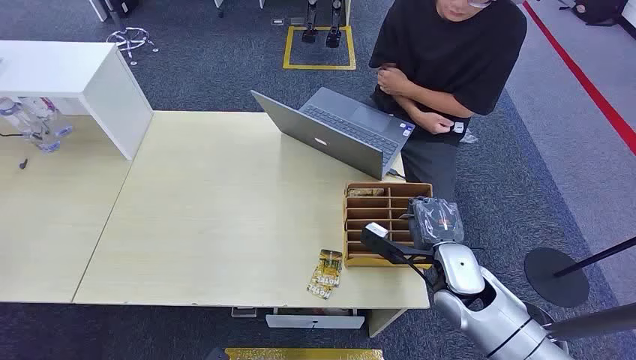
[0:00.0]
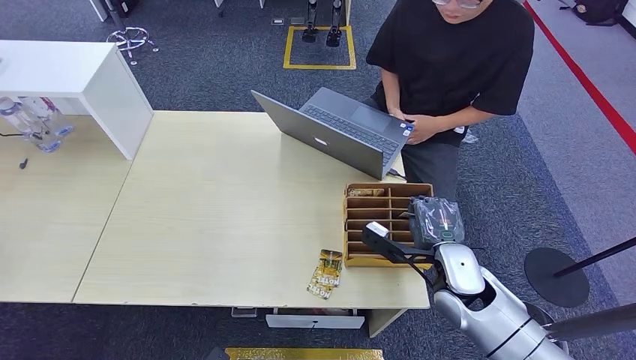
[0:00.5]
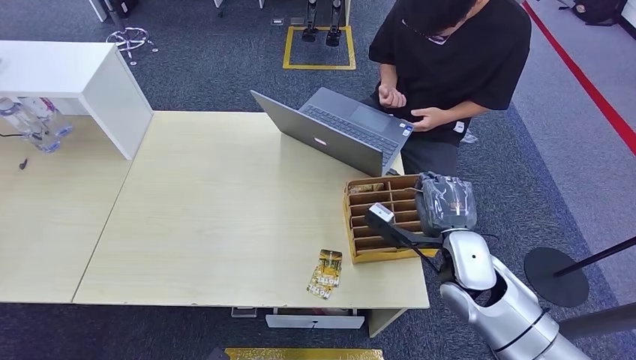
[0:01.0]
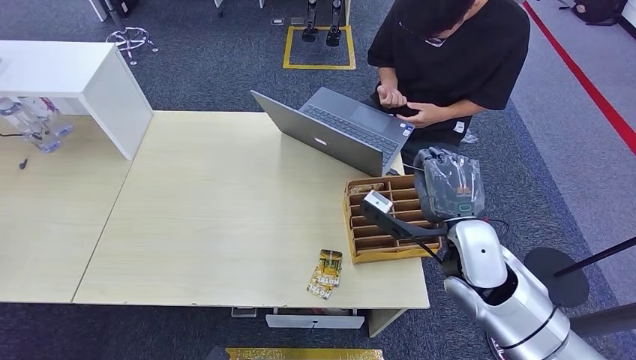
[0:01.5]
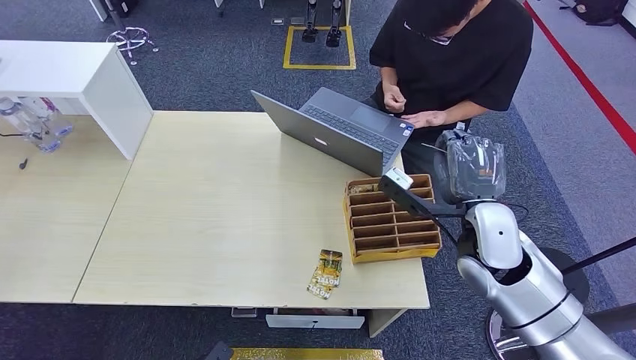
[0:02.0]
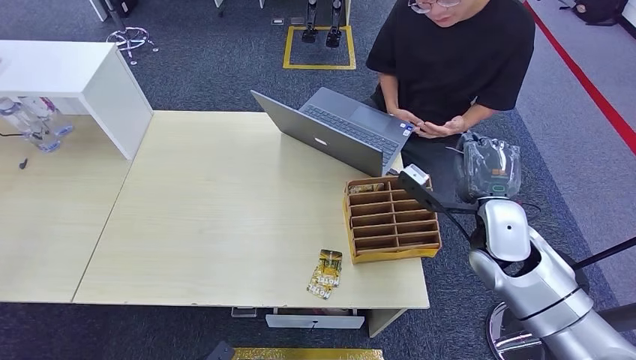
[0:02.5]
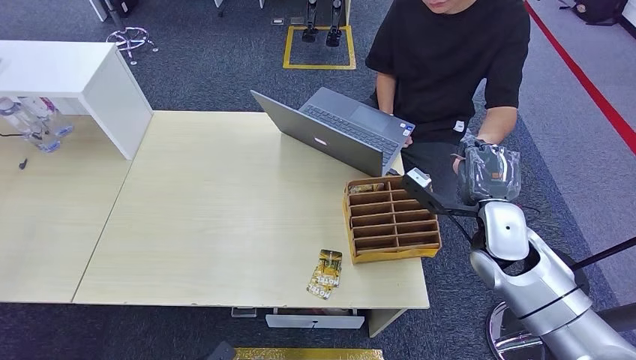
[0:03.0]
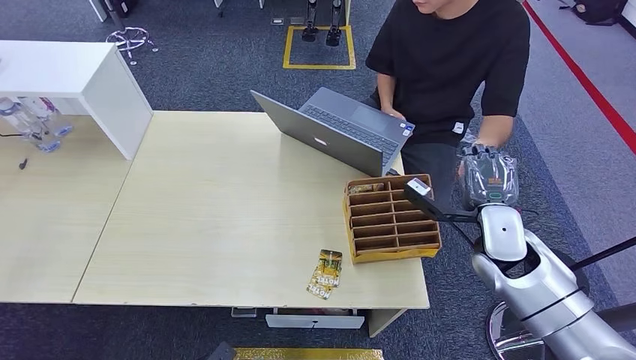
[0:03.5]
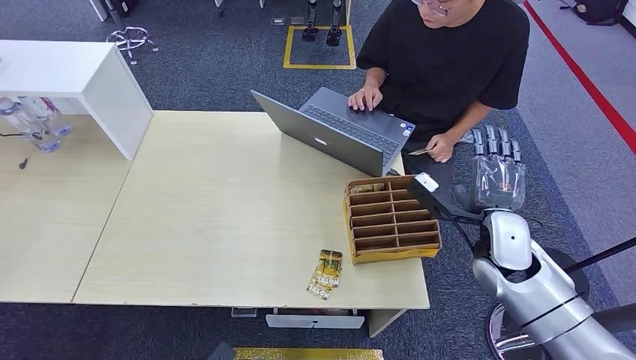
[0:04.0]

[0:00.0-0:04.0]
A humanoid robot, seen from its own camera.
Step, 0:00.0 to 0:02.0: Pick up the key card from the card box.
Step, 0:02.5 to 0:04.0: Hand the key card to the target.
0:02.0 to 0:04.0: The right hand moves to the right, some 5 cm.
